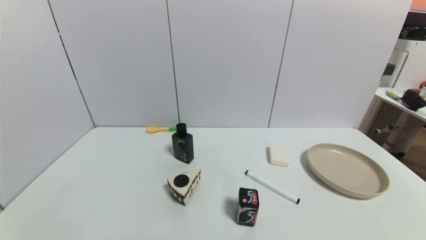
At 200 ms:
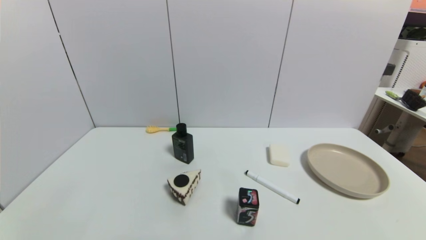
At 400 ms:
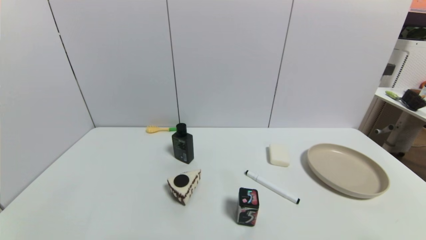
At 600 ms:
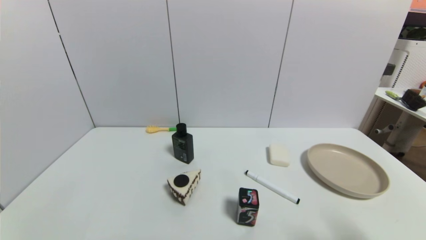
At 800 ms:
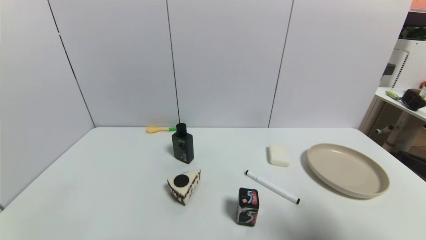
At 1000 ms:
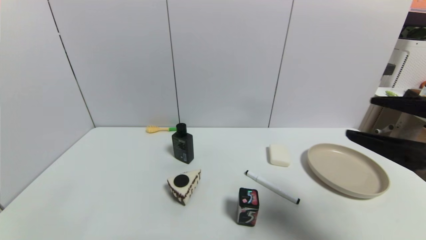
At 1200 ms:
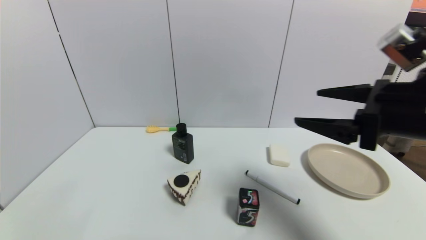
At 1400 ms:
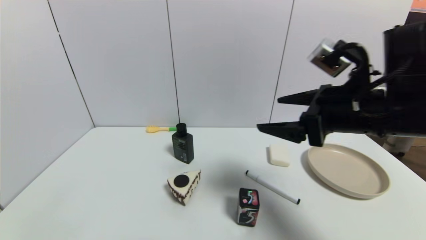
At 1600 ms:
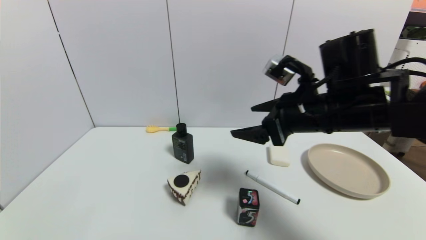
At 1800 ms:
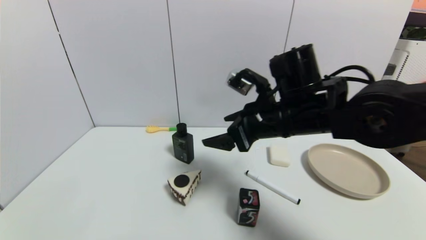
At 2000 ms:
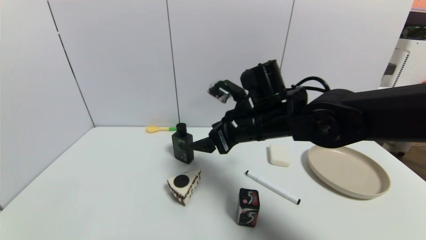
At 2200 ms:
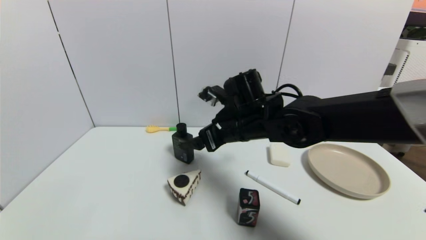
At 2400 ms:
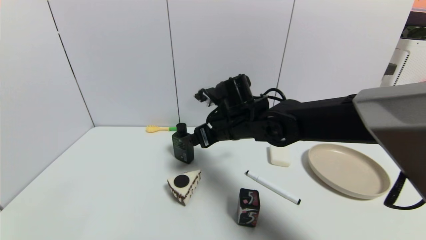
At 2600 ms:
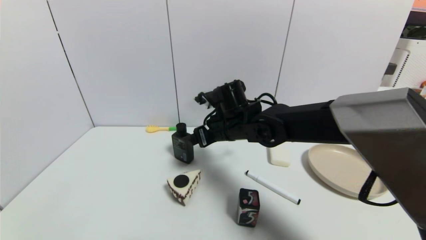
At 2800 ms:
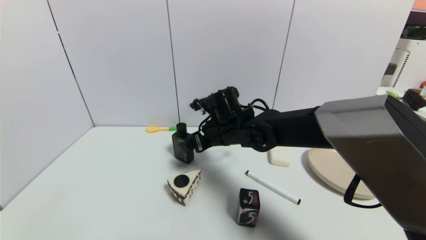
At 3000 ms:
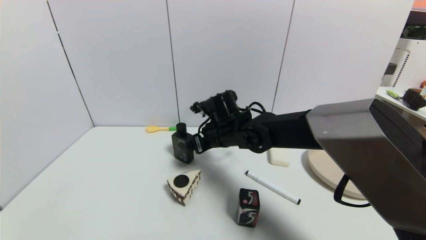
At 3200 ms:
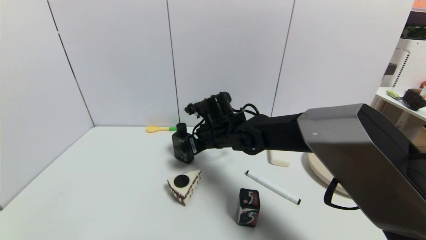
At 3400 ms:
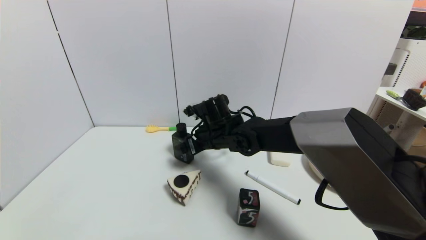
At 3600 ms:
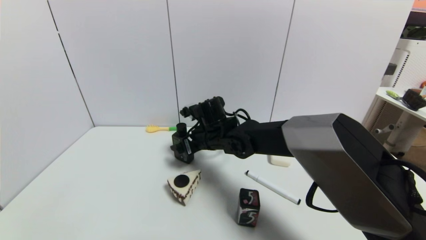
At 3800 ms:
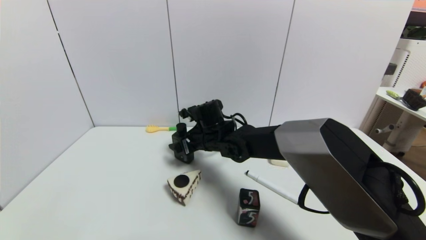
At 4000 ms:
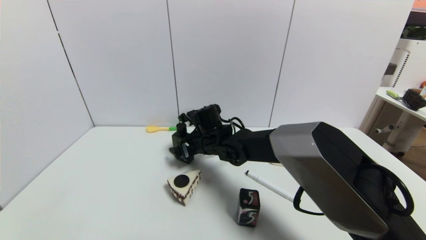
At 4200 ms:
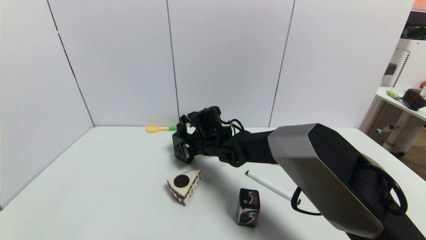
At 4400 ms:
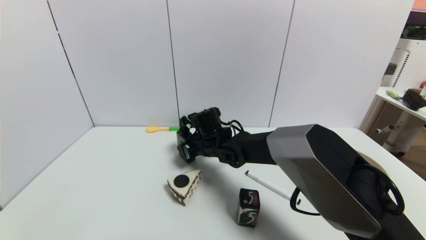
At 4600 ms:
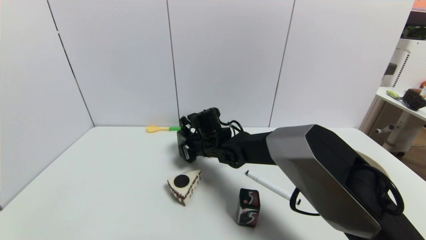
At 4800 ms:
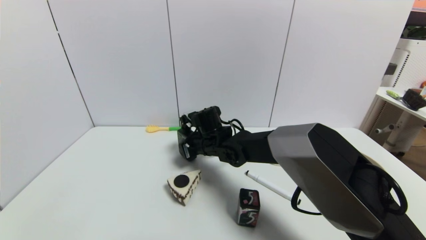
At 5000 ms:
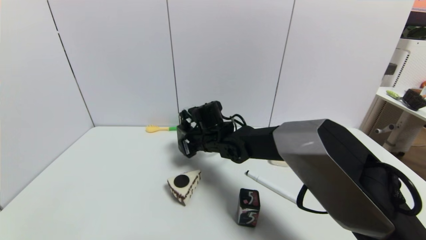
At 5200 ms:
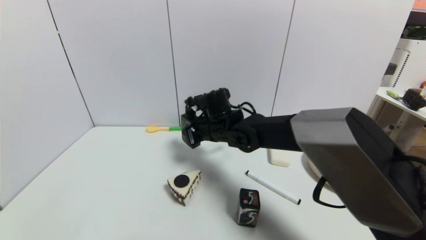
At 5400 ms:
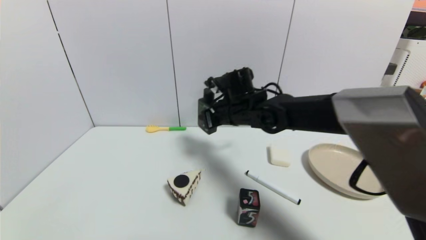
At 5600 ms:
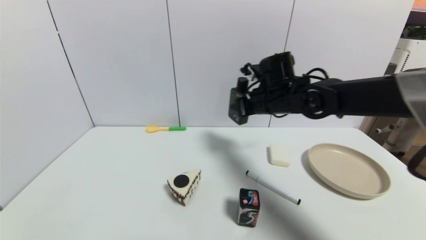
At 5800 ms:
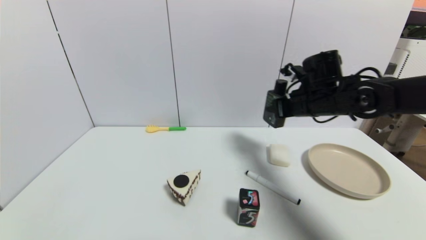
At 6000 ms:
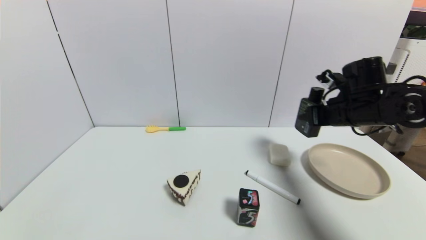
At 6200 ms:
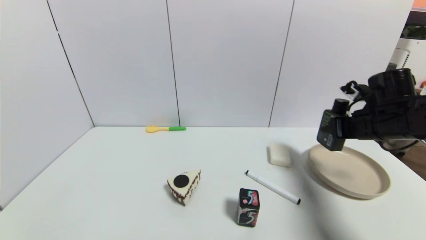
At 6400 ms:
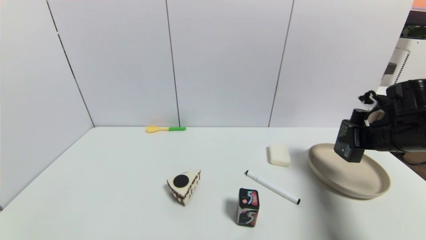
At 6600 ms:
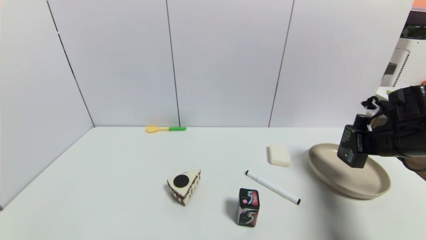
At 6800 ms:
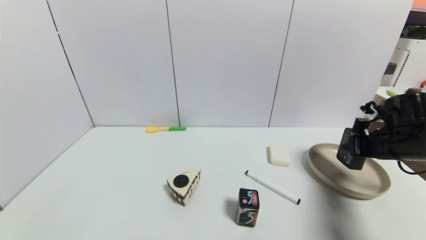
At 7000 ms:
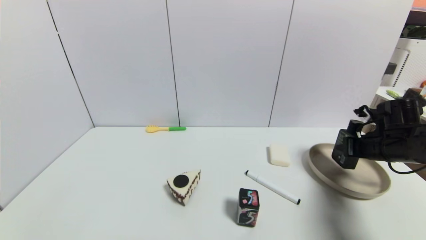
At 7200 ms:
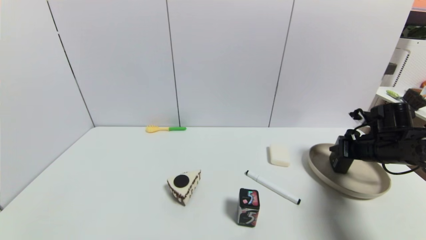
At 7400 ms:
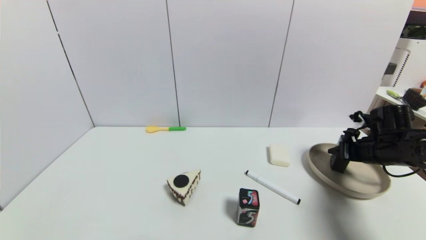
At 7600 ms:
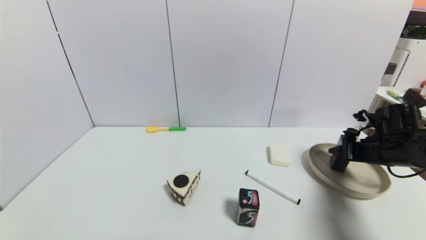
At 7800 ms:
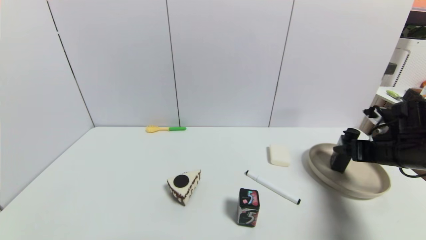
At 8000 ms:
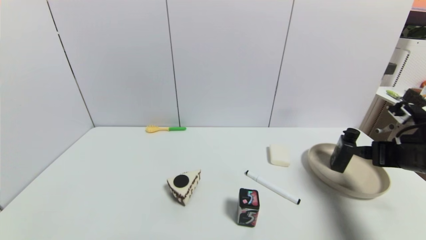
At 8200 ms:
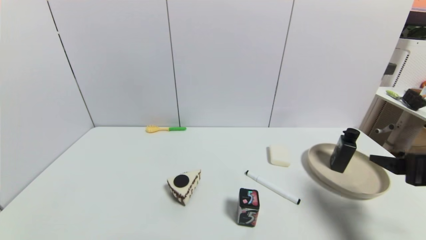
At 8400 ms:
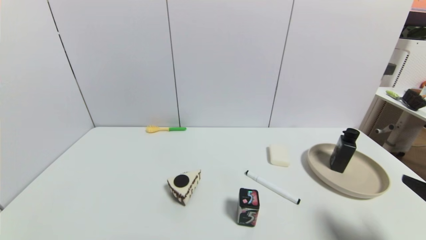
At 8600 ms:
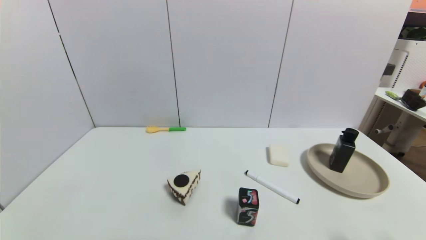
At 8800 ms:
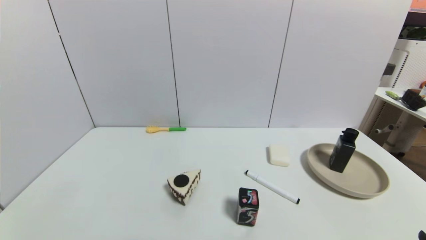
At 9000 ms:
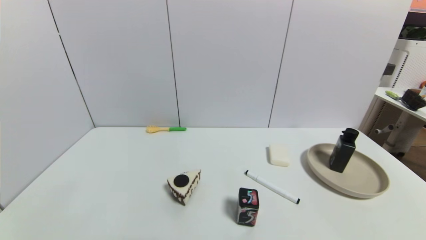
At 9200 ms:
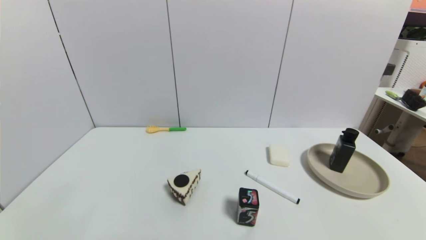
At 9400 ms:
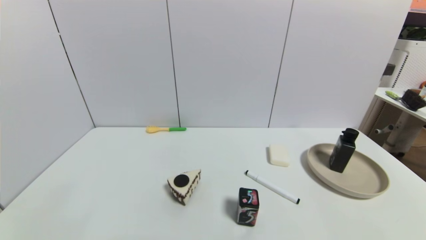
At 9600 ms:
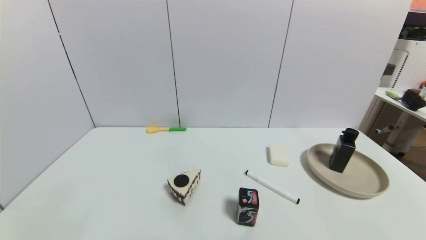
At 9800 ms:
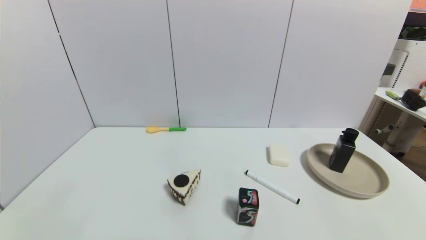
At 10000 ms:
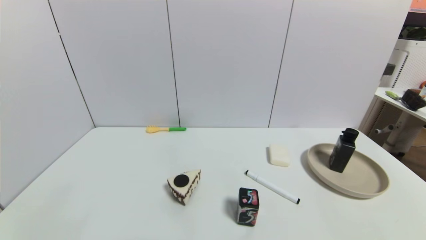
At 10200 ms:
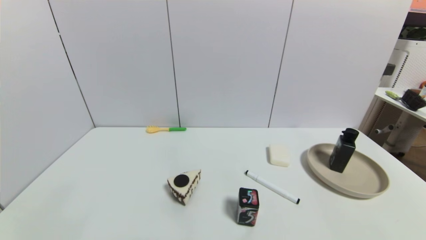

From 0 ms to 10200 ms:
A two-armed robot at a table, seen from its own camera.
Task of the whole recording: use a gripper to pick the target object and place on the brown plate.
Step, from 0 ms to 4400 ms: Grasp the hard facial cleanser with the right gripper.
Step, from 4600 ms to 7800 ms: Place the hard facial cleanser on the brown plate with the right gripper.
From 0 ms to 1400 ms: The right gripper travels forward, upward and to the left by about 35 cm.
From 1400 ms to 3000 ms: The right gripper shifts some 25 cm to the left, forward and downward.
From 3000 ms to 4400 ms: The right gripper is displaced downward by approximately 5 cm, and closes its fingers.
From 4400 ms to 5800 ms: The right gripper shifts approximately 30 cm to the right and upward.
From 5800 ms to 7200 ms: The right gripper is displaced to the right and downward by approximately 20 cm.
From 7200 ms to 8800 ms: The right gripper moves backward, roughly 30 cm, and opens.

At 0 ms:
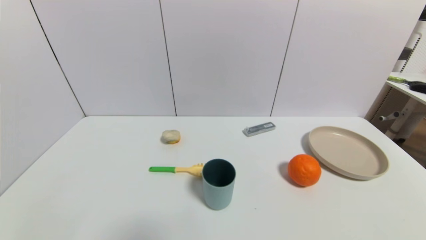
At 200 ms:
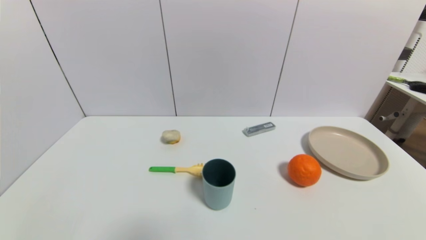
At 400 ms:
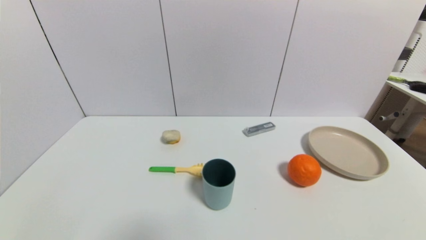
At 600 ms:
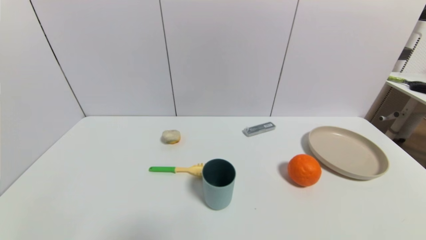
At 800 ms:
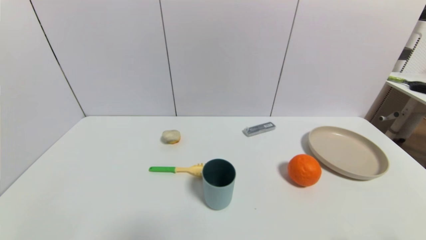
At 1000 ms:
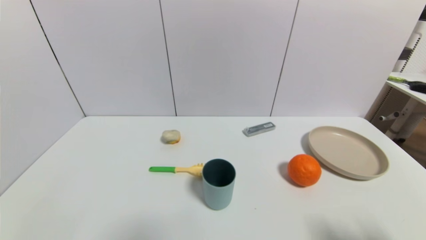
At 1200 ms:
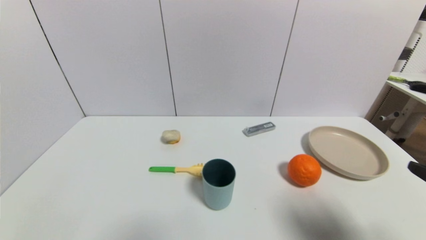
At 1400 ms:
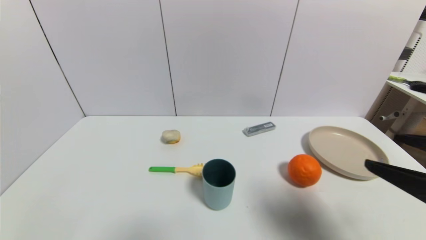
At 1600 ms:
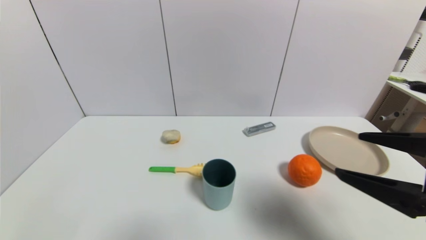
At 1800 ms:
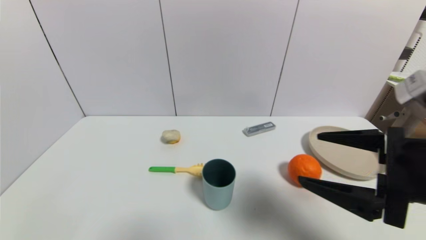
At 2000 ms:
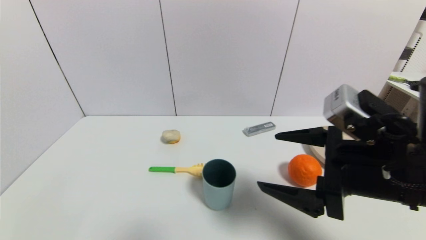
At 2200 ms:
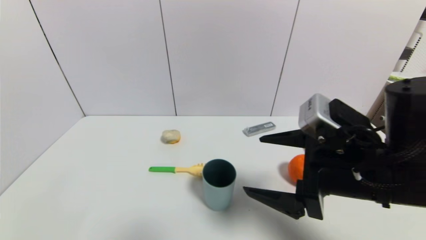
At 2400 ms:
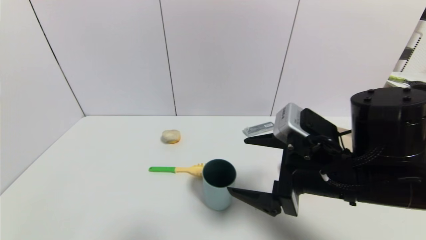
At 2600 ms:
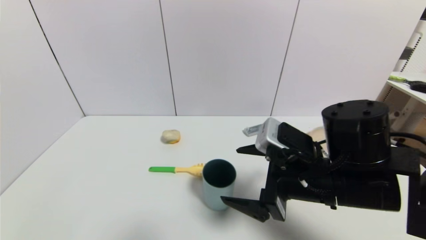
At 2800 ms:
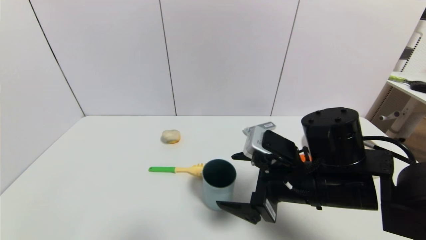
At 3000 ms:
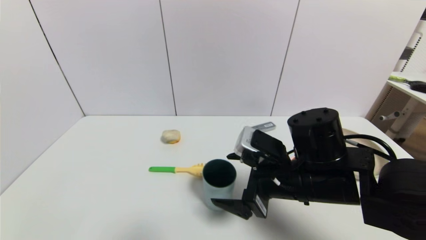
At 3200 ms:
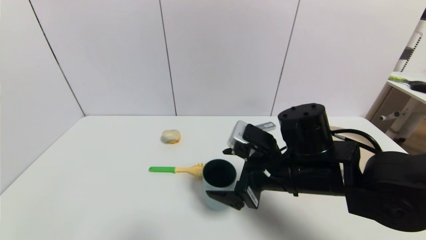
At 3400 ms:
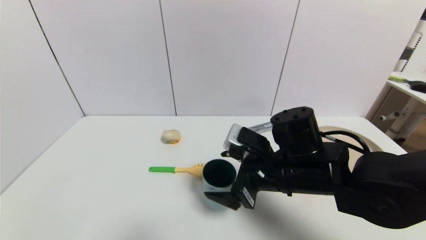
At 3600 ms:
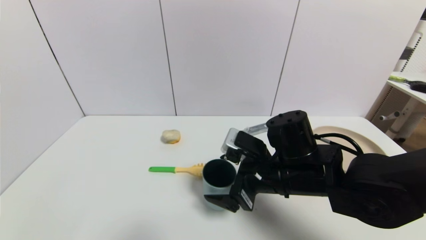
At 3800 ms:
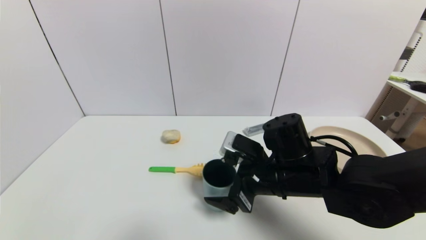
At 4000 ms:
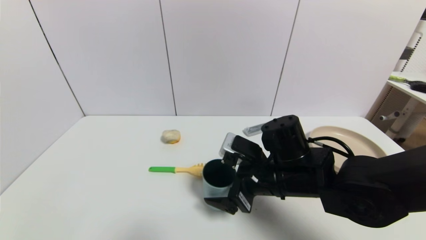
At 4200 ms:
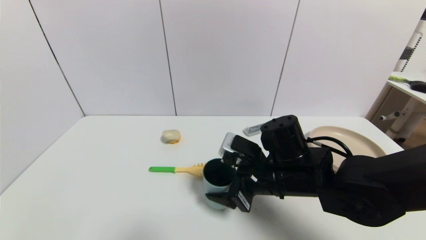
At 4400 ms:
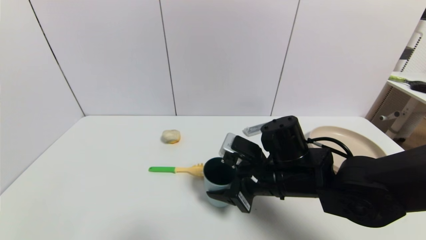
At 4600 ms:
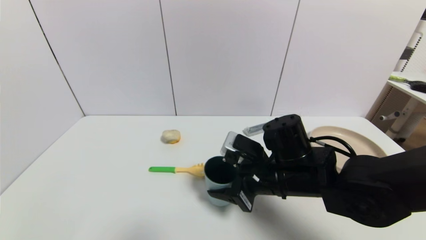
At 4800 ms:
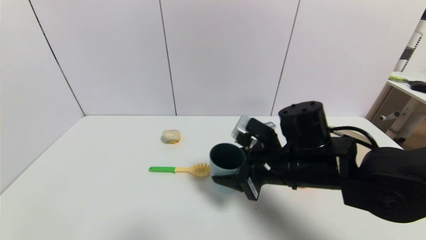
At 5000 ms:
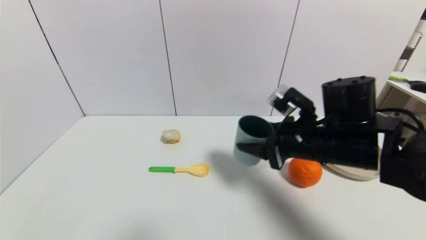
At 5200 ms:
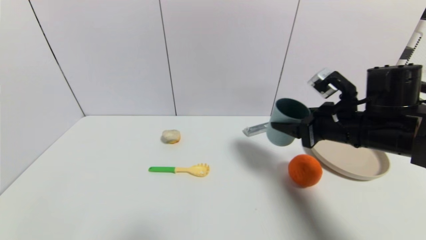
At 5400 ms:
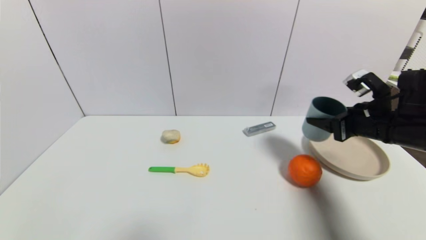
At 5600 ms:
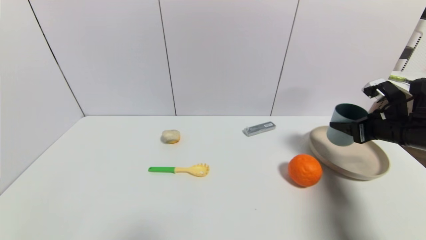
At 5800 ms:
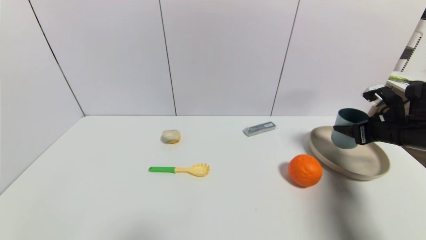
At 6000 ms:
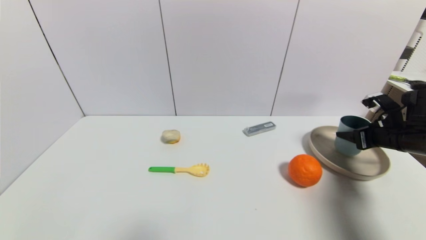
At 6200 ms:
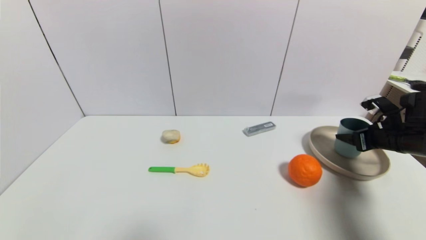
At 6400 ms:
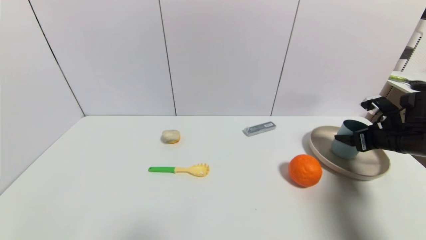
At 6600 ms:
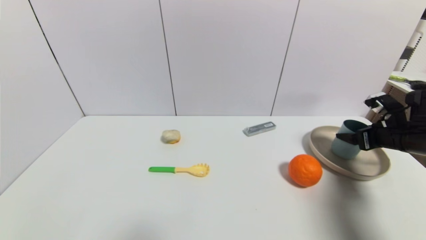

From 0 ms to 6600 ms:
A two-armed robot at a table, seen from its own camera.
Task of the whole recording: use a gripper to pick the target object and place on the brown plate.
Step, from 0 ms to 4200 ms: Grasp the blue cup with the right gripper.
From 0 ms to 1600 ms: The right gripper moves upward, forward and to the left, approximately 25 cm.
From 1600 ms to 3200 ms: The right gripper shifts some 20 cm to the left, forward and downward.
From 3200 ms to 5000 ms: The right gripper shifts roughly 5 cm to the right, and closes up.
From 5000 ms to 6600 ms: The right gripper goes about 20 cm to the right, and opens its fingers.
